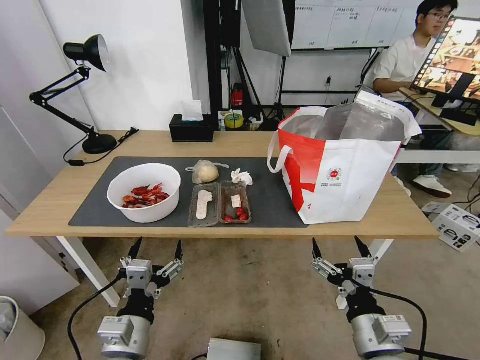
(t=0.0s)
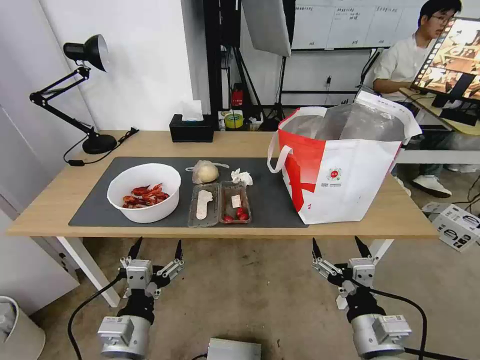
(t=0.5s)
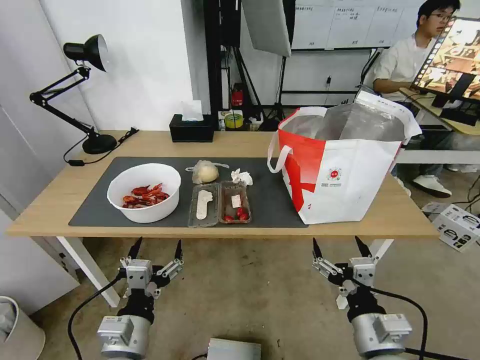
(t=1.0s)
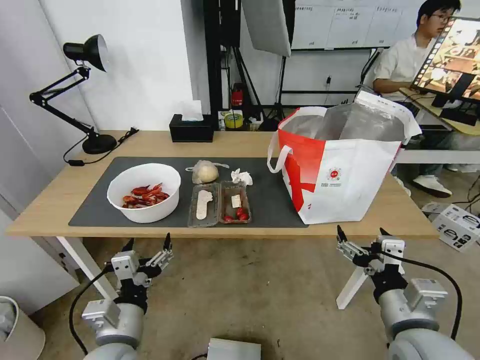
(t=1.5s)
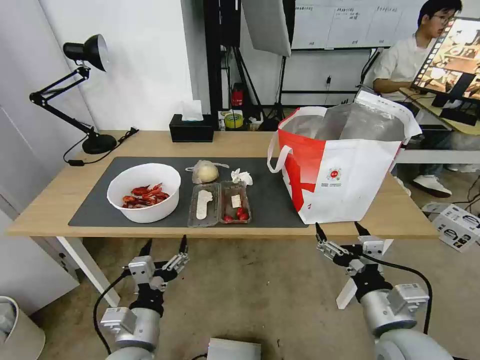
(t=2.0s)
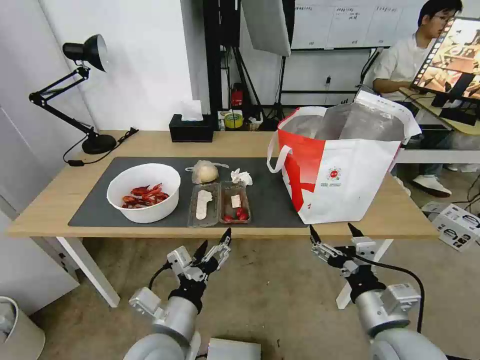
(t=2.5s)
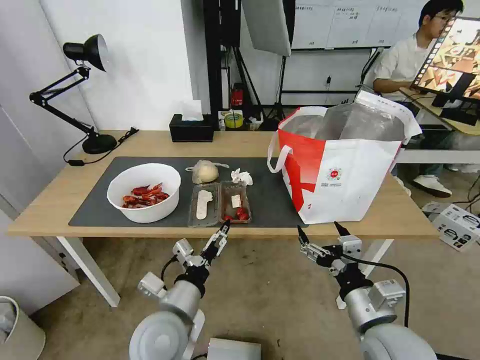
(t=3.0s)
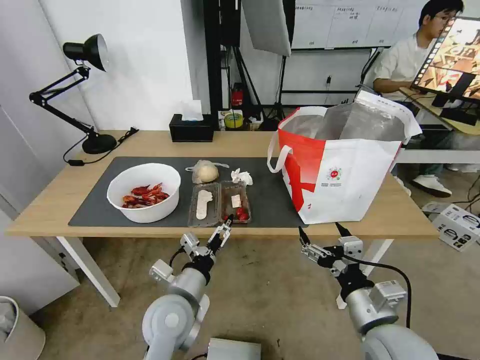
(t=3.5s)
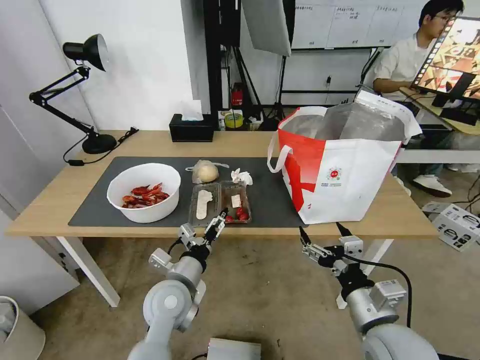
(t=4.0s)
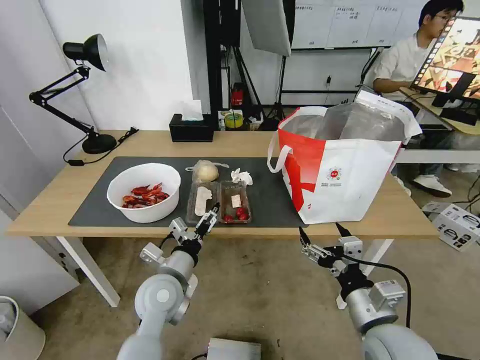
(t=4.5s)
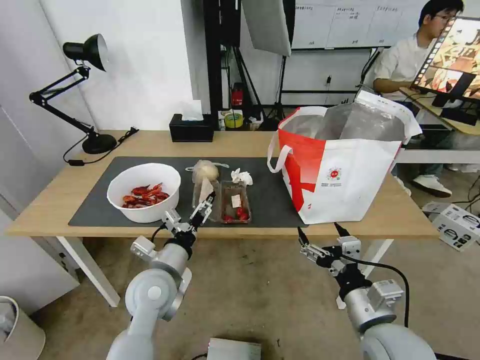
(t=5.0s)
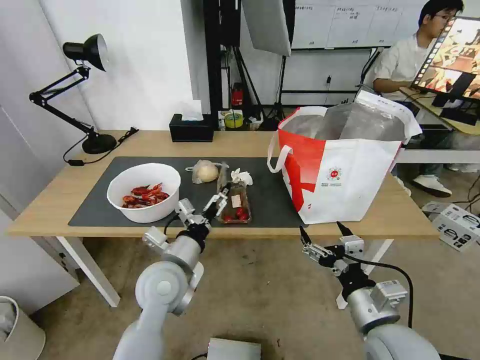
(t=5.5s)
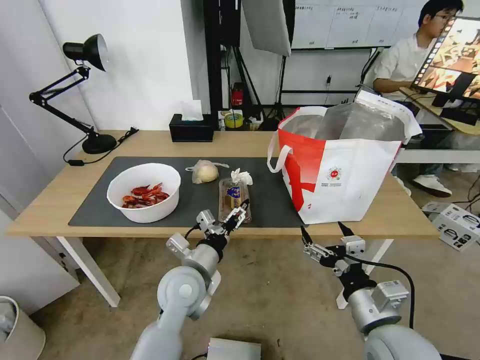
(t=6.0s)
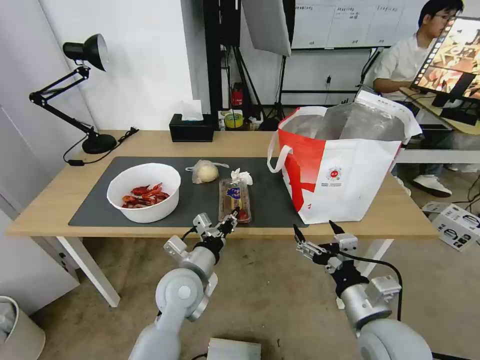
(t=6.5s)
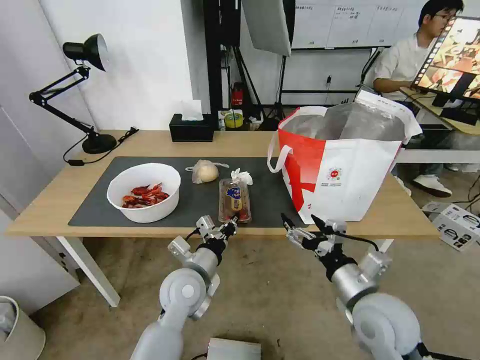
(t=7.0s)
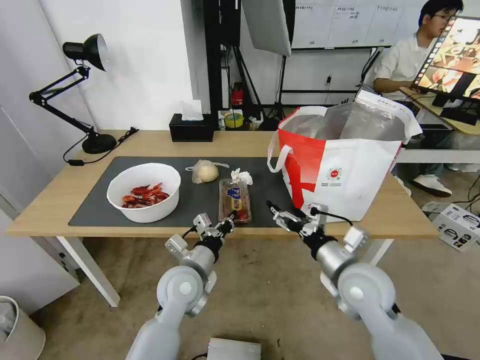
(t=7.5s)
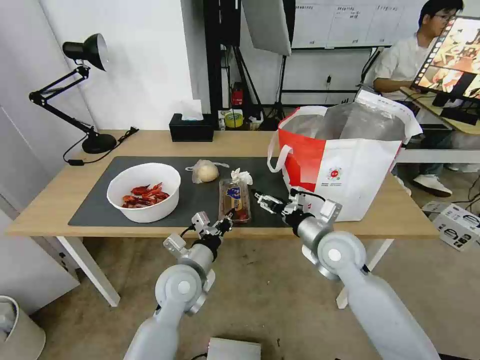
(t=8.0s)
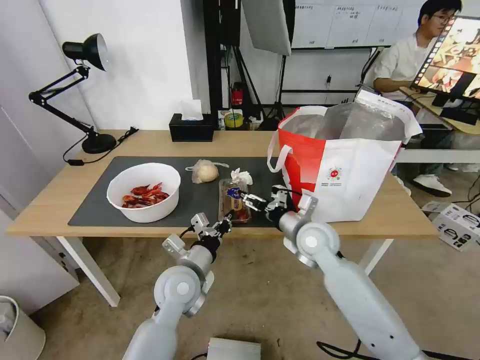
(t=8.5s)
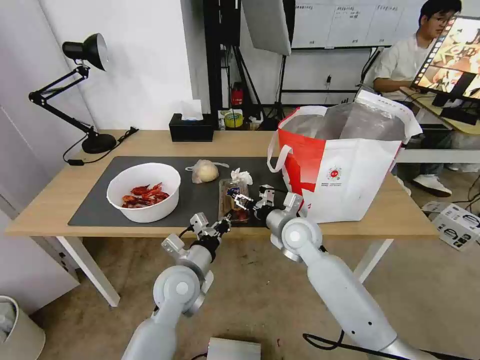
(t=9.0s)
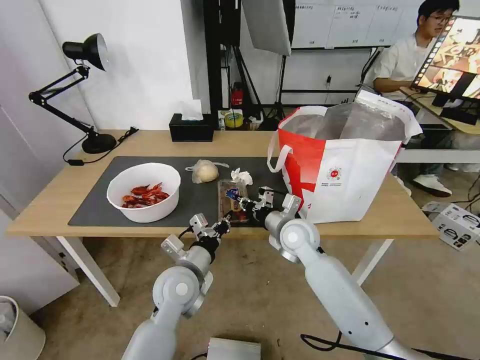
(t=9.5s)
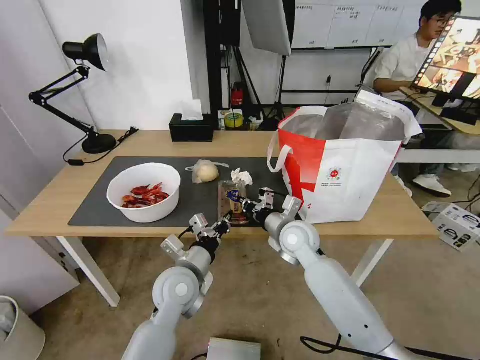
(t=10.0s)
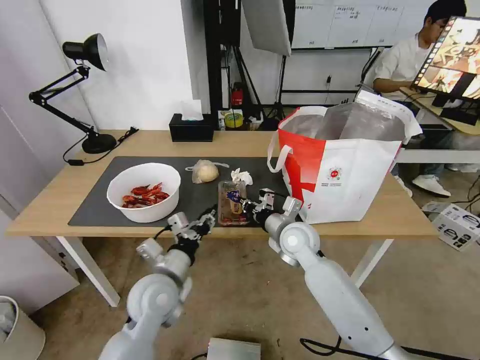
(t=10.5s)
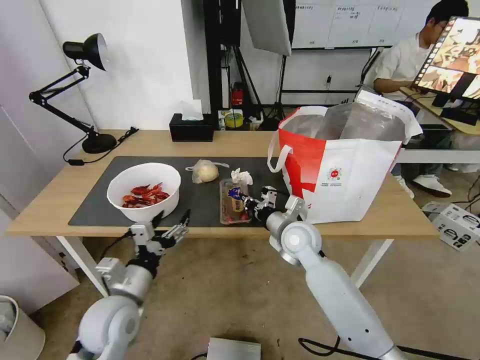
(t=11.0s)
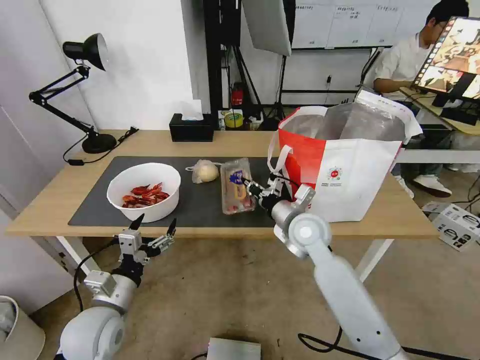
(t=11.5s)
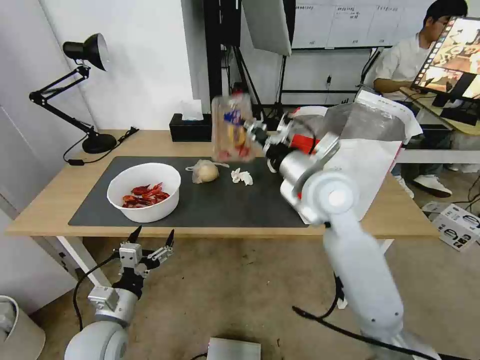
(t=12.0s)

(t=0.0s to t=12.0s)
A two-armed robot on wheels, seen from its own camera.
Task of the whole recording: Pick up the trash from the table and place it into the takeout bag.
t=2.0s - t=4.0s: The left gripper moves forward, some 10 cm.
t=4.0s - t=6.0s: There are only small adjustments of the grippers.
t=6.0s - t=8.0s: The left gripper closes. Meanwhile the right gripper goes about 20 cm forward.
t=8.0s - t=10.0s: The right gripper goes about 10 cm to the left and forward, and closes up.
t=10.0s - t=12.0s: The left gripper heads to the left and backward, covering roughly 15 cm, and opens up; the right gripper is displaced upward by about 20 cm.

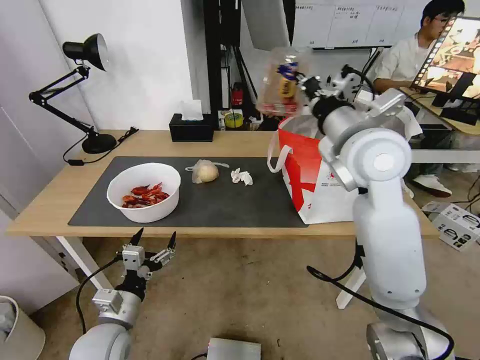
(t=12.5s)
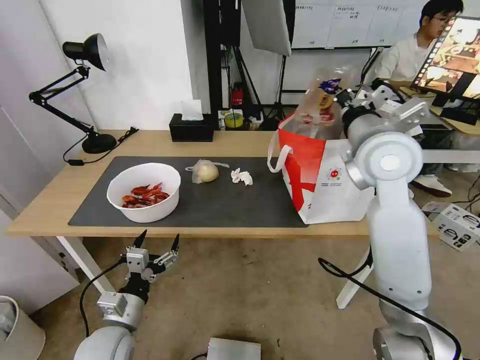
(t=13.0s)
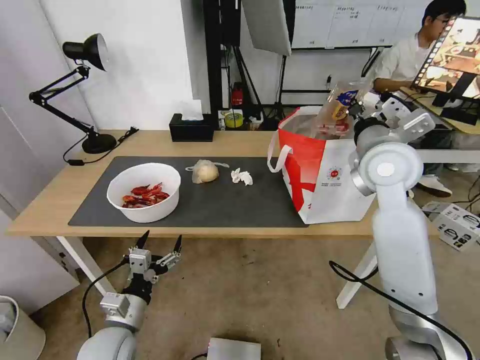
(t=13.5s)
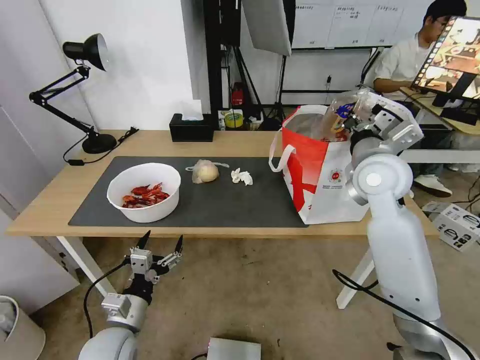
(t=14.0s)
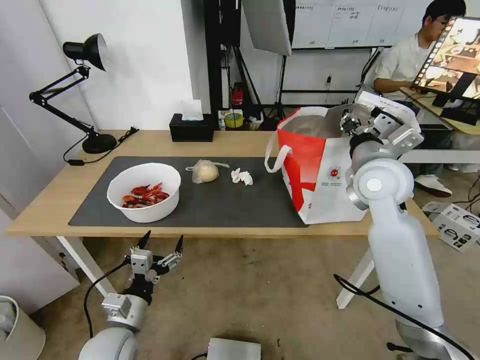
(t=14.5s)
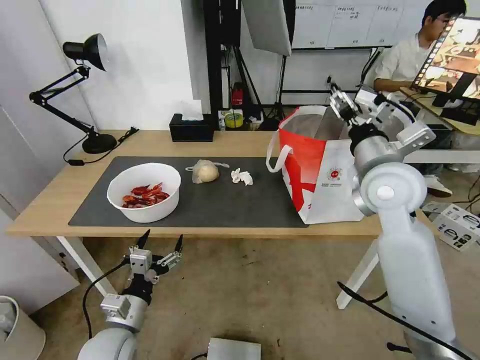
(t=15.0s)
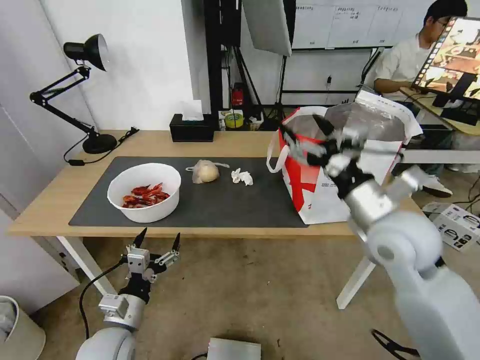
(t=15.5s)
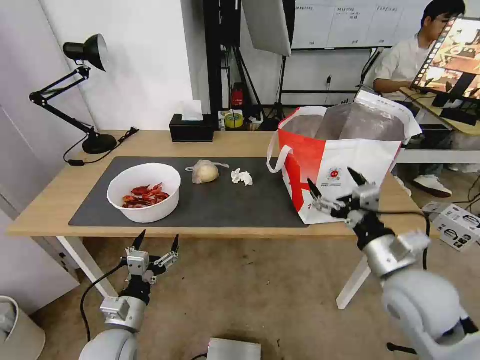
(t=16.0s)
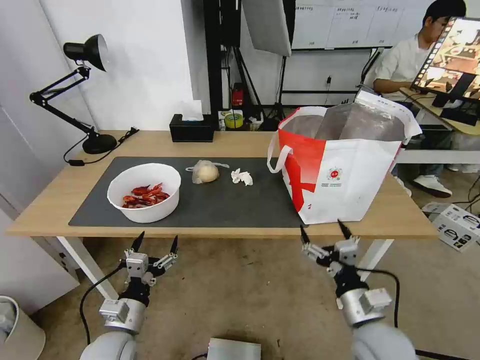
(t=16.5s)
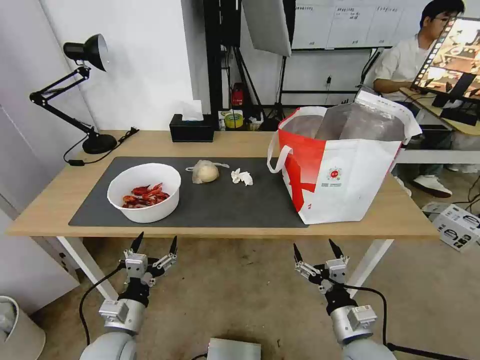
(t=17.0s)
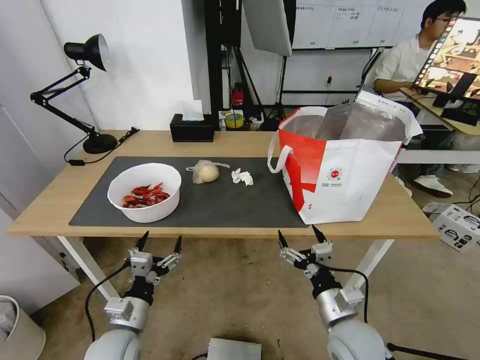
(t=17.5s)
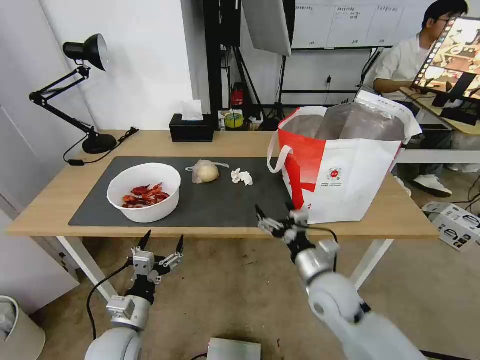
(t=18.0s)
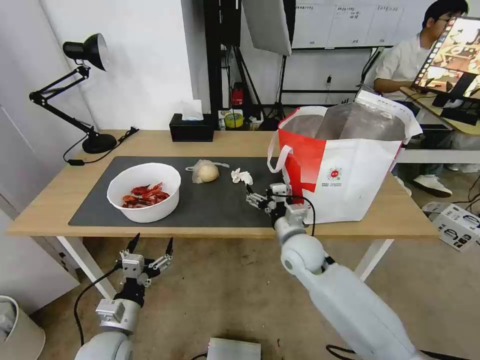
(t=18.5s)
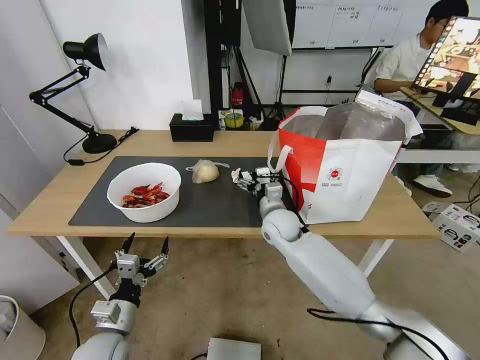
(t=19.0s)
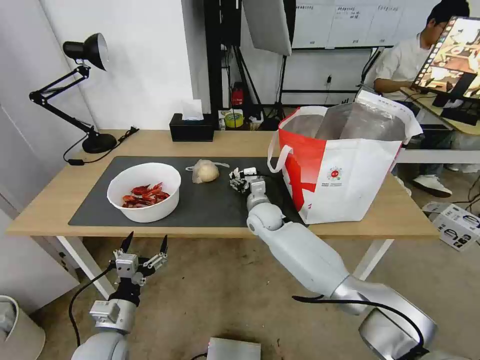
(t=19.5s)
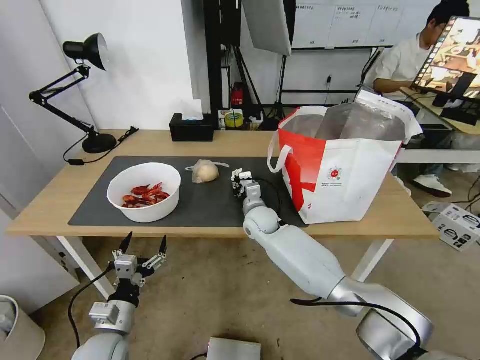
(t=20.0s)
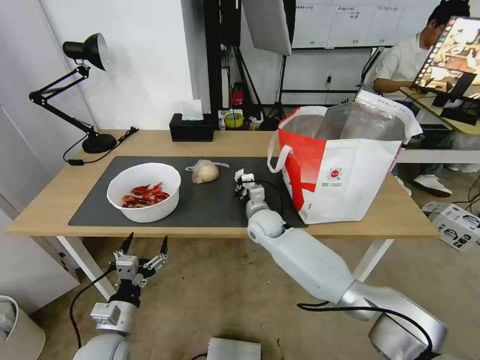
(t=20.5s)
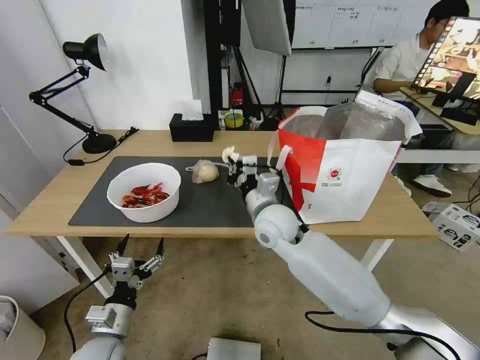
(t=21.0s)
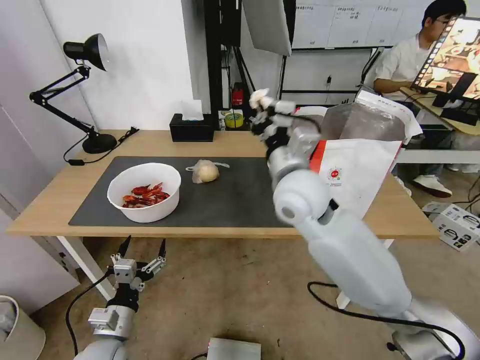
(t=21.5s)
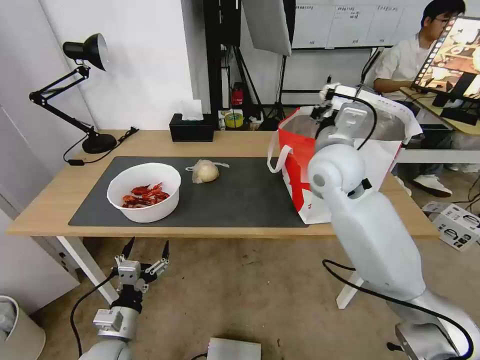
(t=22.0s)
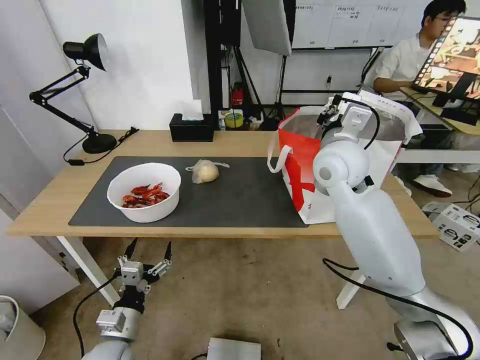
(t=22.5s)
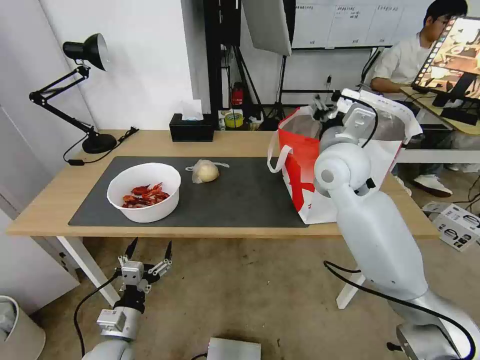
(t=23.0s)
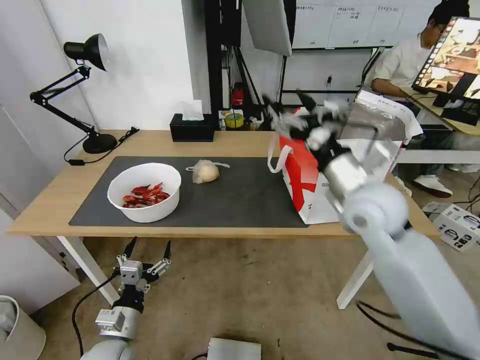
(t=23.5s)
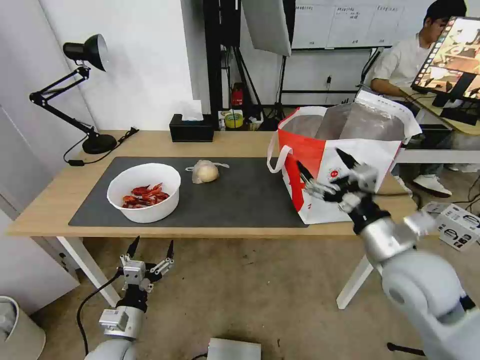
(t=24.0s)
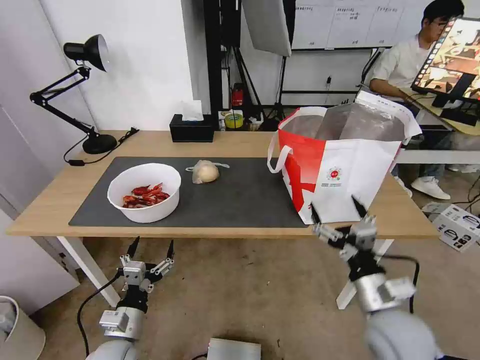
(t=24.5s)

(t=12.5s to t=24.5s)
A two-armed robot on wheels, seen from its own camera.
Task of the whole recording: Pick up the trash from the table and place it into the takeout bag.
t=12.5s - t=14.5s: The right gripper shifts roughly 10 cm downward and to the right.
t=14.5s - t=16.5s: The right gripper heads backward and downward, covering about 30 cm, and opens.
t=16.5s - t=18.5s: The right gripper travels forward and to the left by approximately 20 cm.
t=18.5s - t=20.5s: The right gripper heads forward and to the left, covering some 15 cm, and closes up.
t=20.5s - t=22.5s: The right gripper is displaced upward and to the right by some 30 cm.
t=22.5s - t=24.5s: The right gripper is displaced backward and downward by some 30 cm, and opens up.

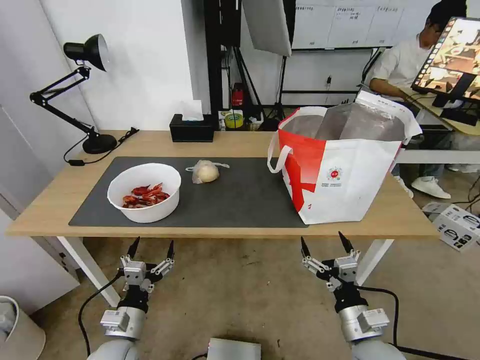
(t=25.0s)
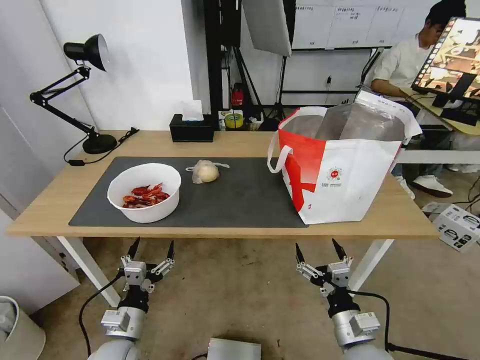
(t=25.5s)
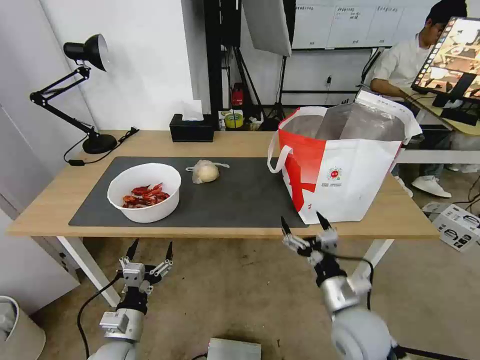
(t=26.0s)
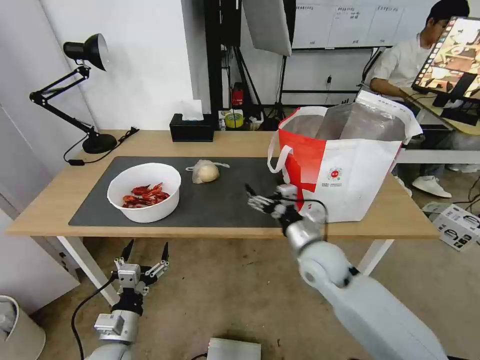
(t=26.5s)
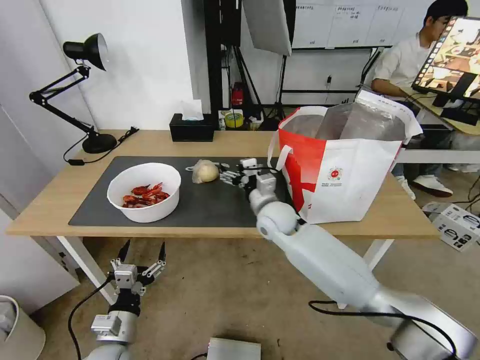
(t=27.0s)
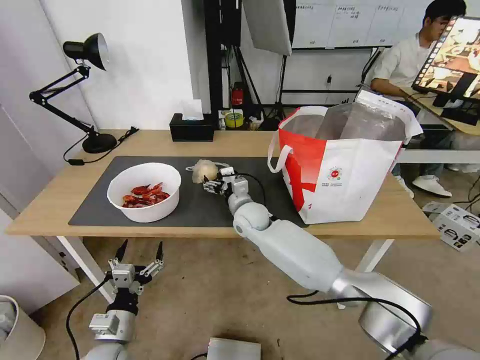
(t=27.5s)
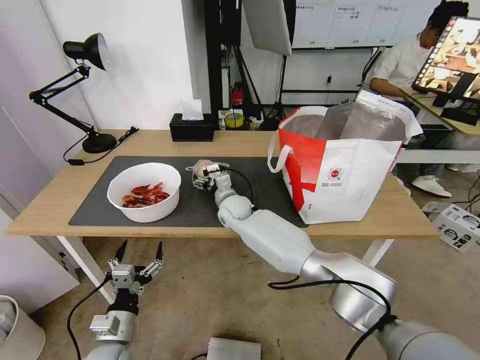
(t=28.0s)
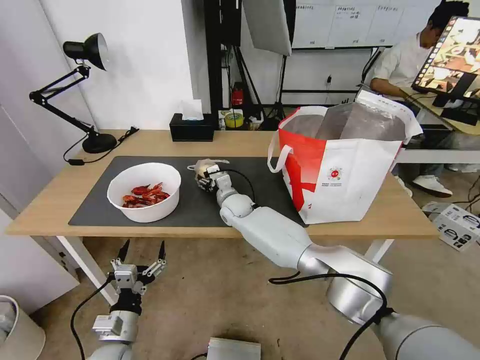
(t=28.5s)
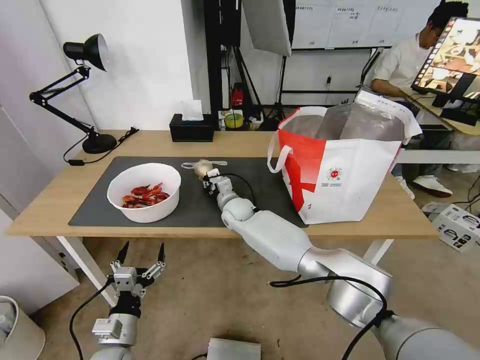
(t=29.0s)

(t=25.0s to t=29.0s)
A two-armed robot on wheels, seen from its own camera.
Task of the whole recording: Pick up the trash from the table and place it into the takeout bag.
t=25.0s - t=27.0s: The right gripper travels forward and to the left by roughly 35 cm.
t=27.0s - t=29.0s: The right gripper moves to the left, forward and downward, about 15 cm, and closes.
